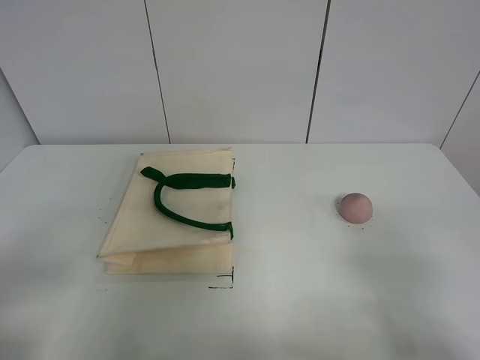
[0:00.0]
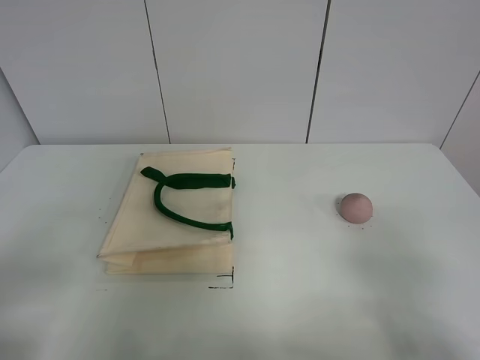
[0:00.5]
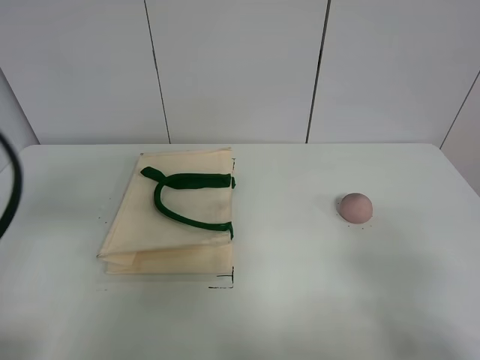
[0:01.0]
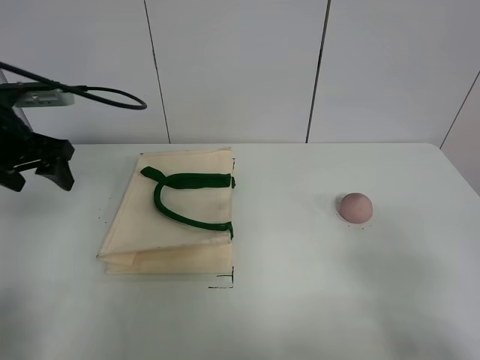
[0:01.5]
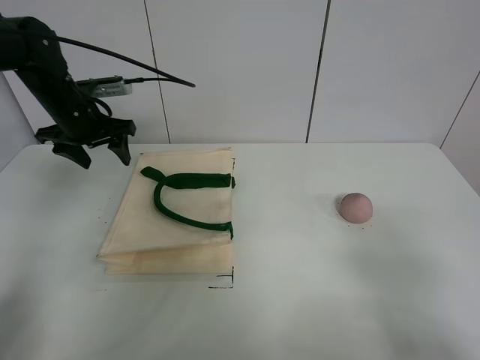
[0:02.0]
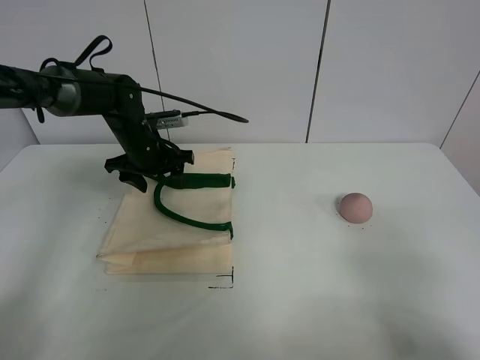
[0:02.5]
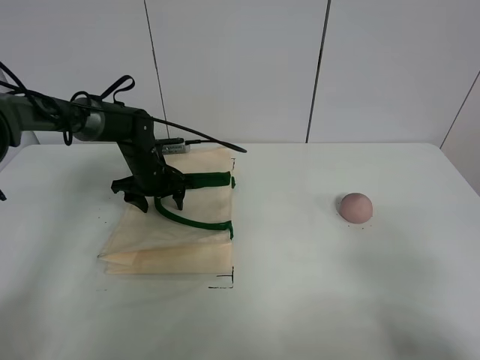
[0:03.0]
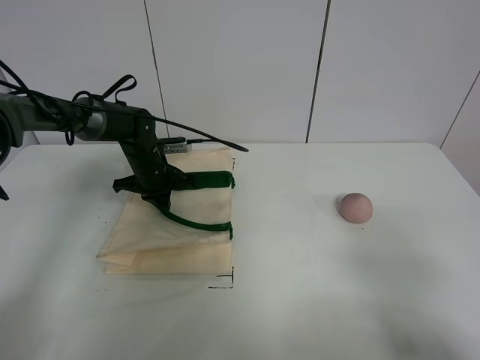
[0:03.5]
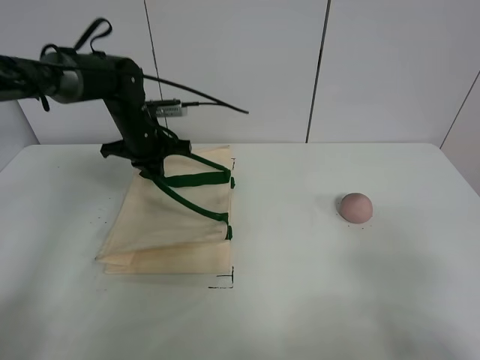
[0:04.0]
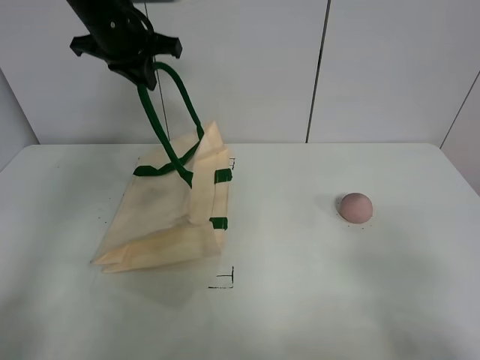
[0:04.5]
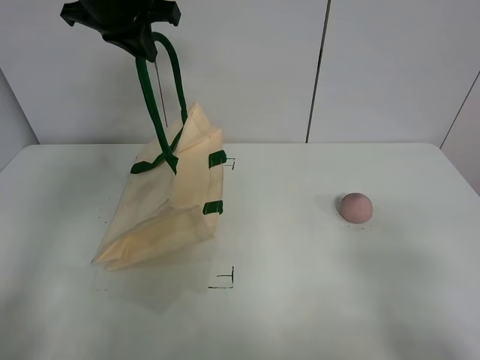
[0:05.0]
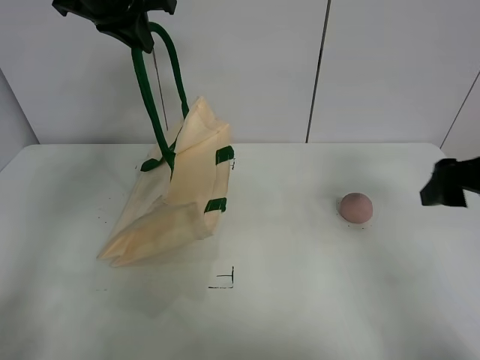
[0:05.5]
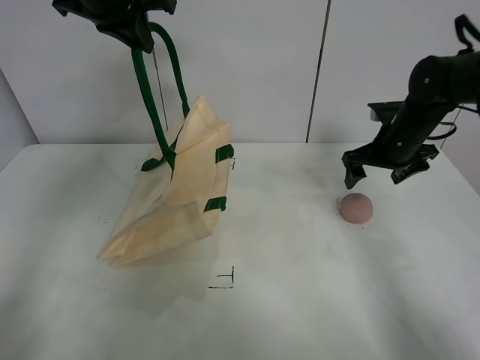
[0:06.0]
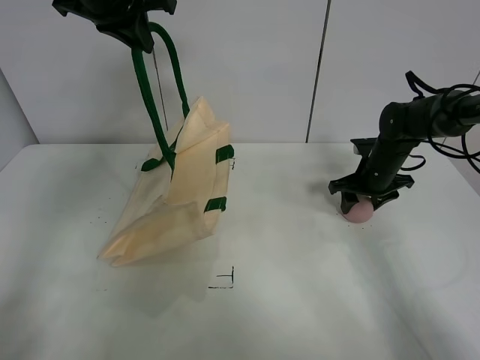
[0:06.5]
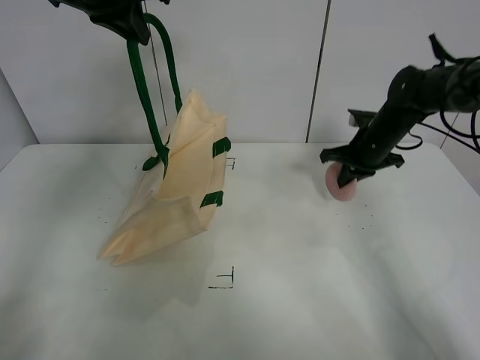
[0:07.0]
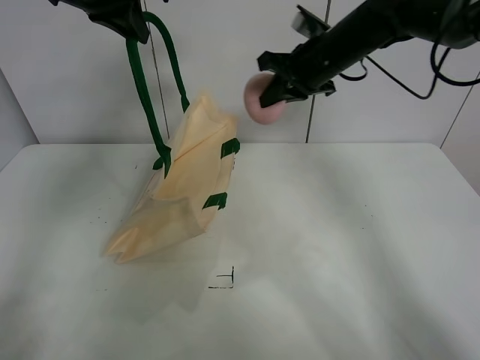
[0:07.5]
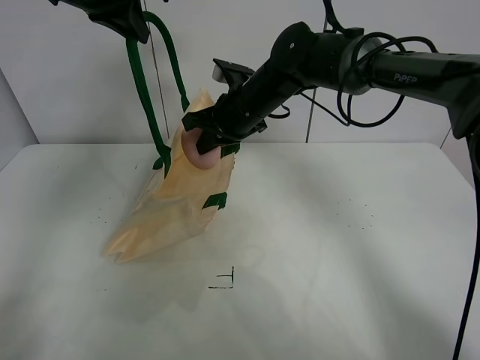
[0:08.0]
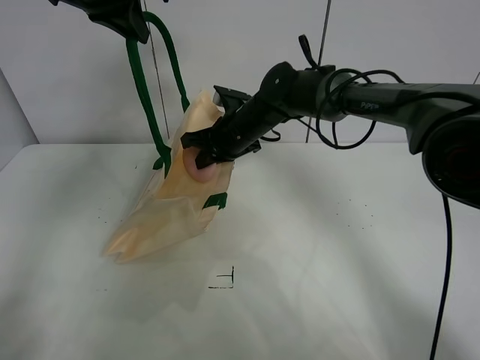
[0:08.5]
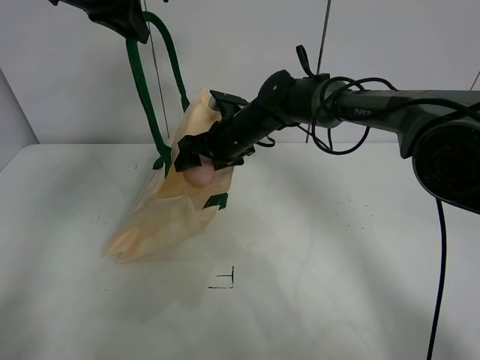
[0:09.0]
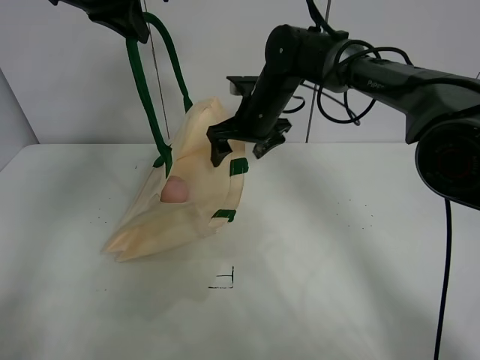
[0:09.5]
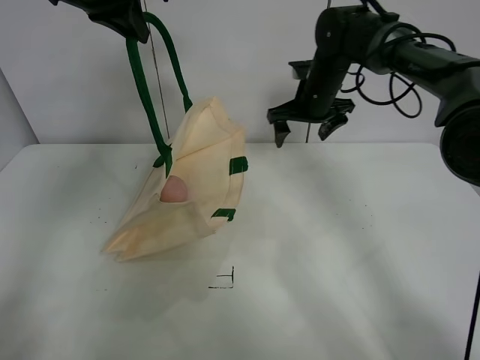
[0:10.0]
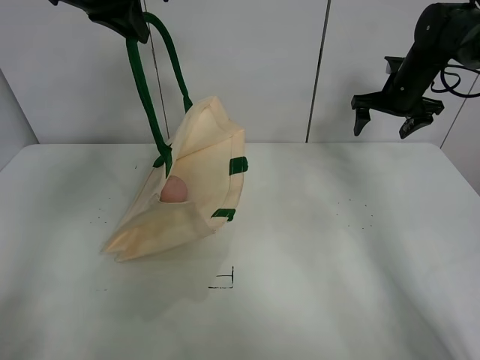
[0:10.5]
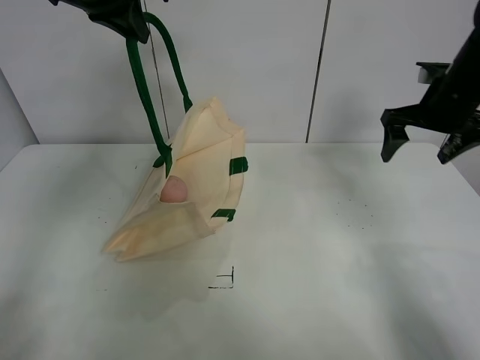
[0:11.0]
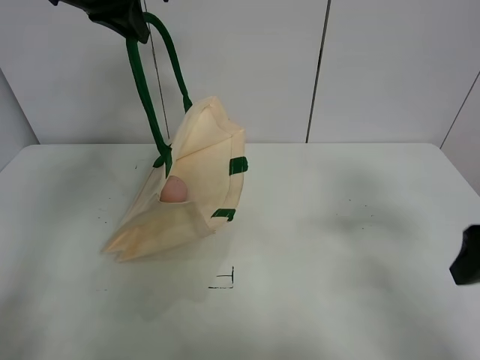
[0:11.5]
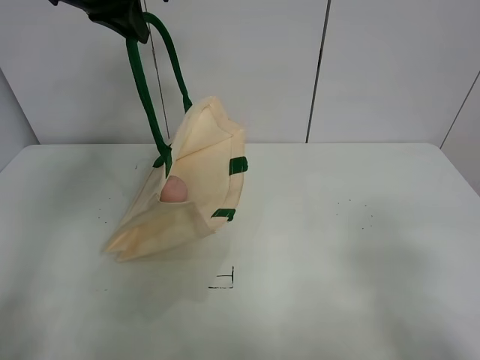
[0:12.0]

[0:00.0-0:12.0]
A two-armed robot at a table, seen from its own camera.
Task of the whole recording: open the white linen bag and put the peach in the bag.
Step, 0:00.0 to 0:04.5: Lift the handbag with left gripper.
Step, 0:05.0 to 0:06.5: Grasp the peach with right gripper.
Step, 0:07.0 to 0:09.0: Place the peach in the handbag with right gripper.
0:00.0 to 0:02.0: The left gripper heads forward, covering roughly 40 cm.
0:02.0 to 0:04.0: The left gripper shifts approximately 10 cm to the right, moves roughly 15 cm downward and comes back, and closes.
0:04.0 to 0:06.0: The right gripper goes some 40 cm forward, while the left gripper travels upward by some 20 cm.
0:06.0 to 0:08.0: The right gripper heads to the left, covering roughly 25 cm, and closes its fingers.
0:08.0 to 0:10.0: The right gripper is displaced to the right and forward by about 15 cm, and opens up.
0:10.0 to 0:12.0: The right gripper travels backward by approximately 50 cm.

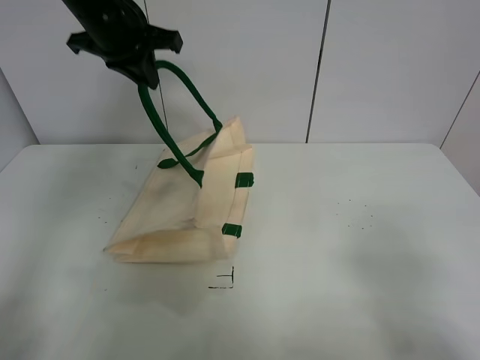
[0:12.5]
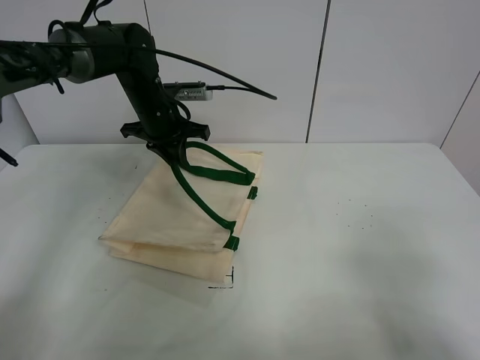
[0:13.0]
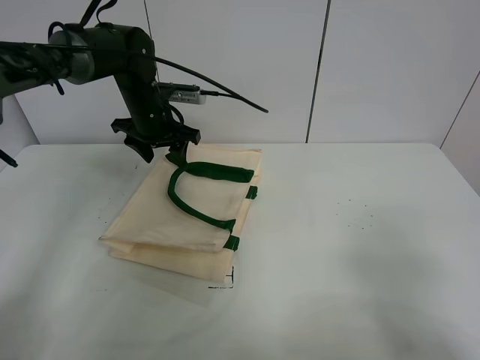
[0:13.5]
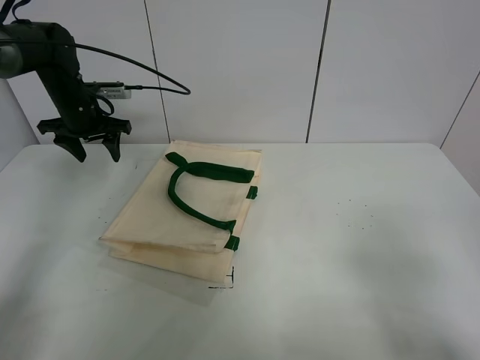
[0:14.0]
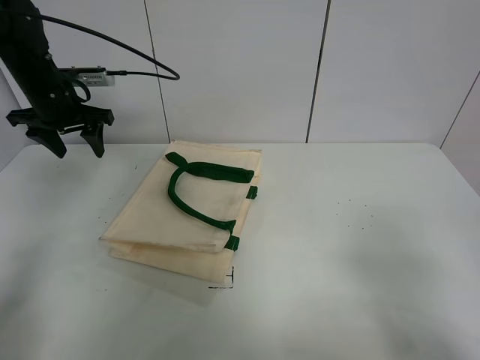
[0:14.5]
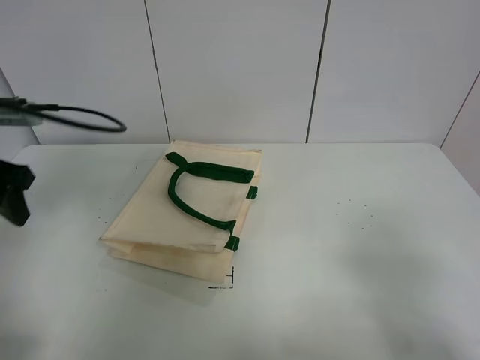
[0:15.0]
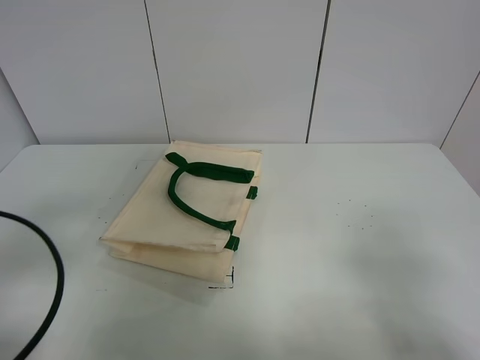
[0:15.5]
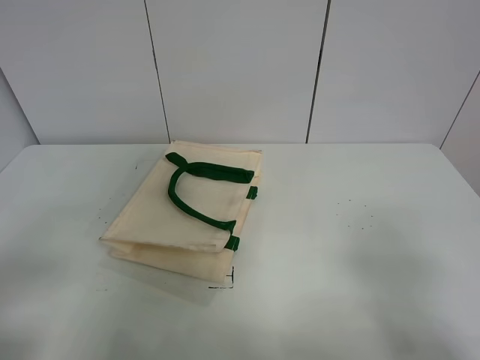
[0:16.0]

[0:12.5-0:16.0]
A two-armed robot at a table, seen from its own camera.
Task of the whole recording: open the white linen bag and put the peach in the bag.
0:12.5 to 0:14.5: The left gripper is displaced to the left and downward by about 15 cm, and opens its fingers.
0:14.5 to 0:16.0: The left gripper is displaced backward by approximately 40 cm.
